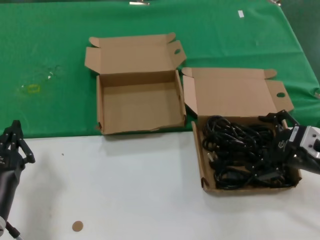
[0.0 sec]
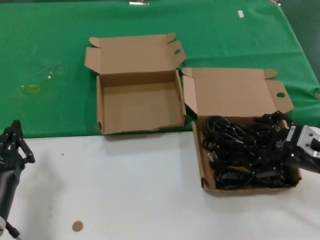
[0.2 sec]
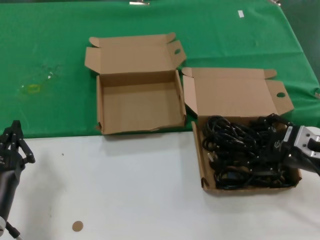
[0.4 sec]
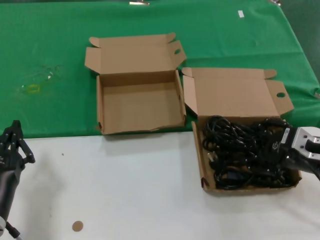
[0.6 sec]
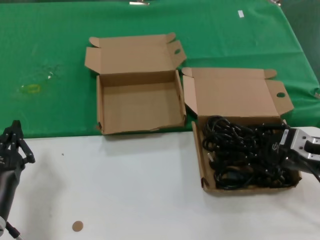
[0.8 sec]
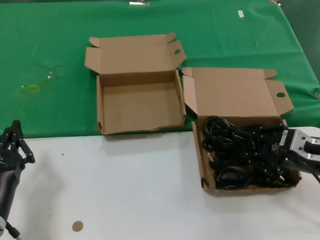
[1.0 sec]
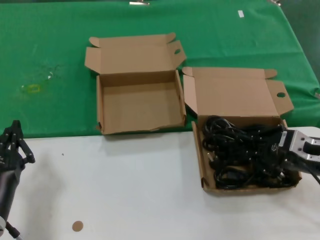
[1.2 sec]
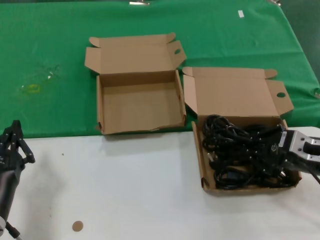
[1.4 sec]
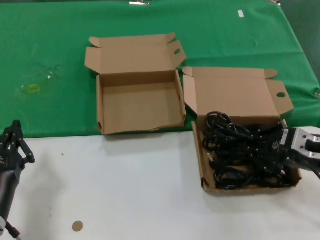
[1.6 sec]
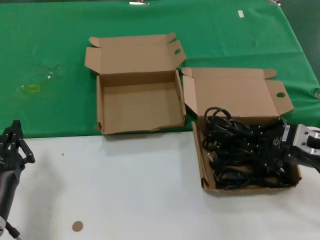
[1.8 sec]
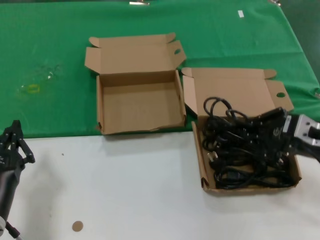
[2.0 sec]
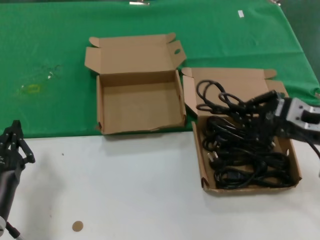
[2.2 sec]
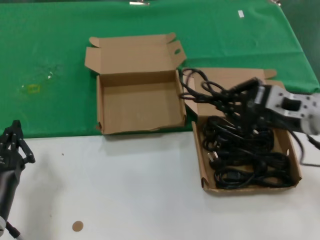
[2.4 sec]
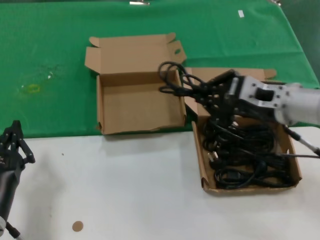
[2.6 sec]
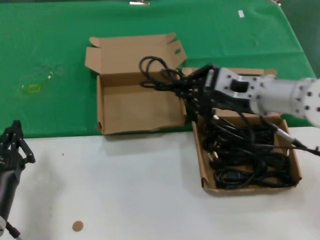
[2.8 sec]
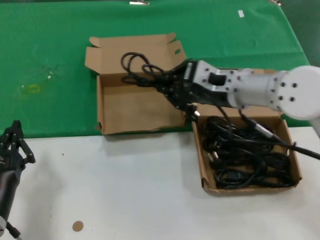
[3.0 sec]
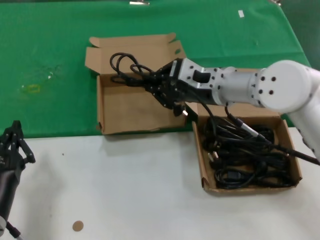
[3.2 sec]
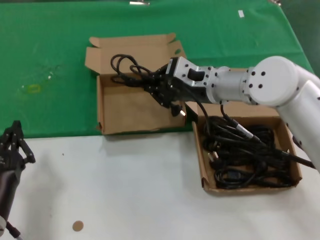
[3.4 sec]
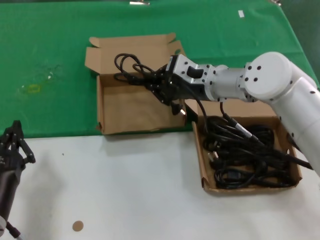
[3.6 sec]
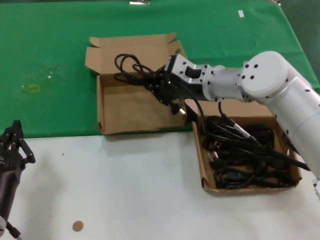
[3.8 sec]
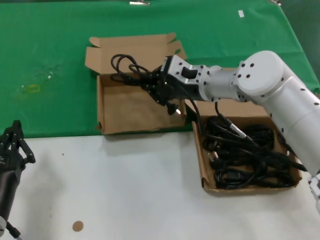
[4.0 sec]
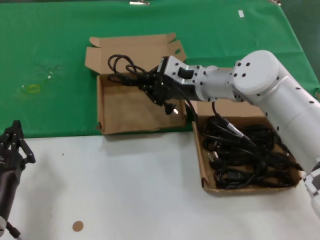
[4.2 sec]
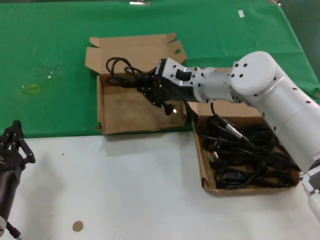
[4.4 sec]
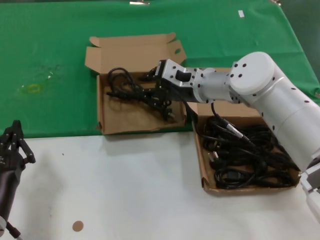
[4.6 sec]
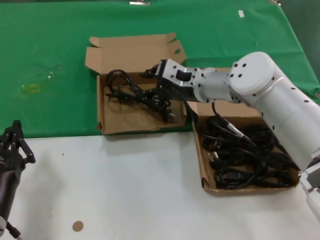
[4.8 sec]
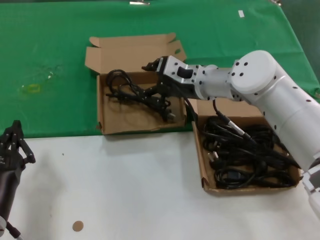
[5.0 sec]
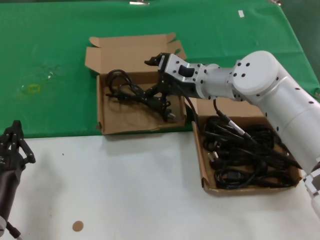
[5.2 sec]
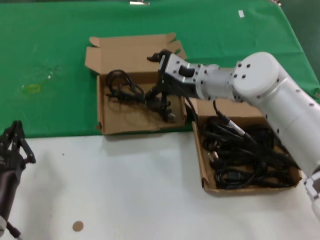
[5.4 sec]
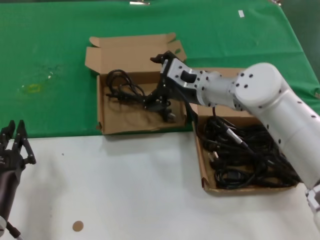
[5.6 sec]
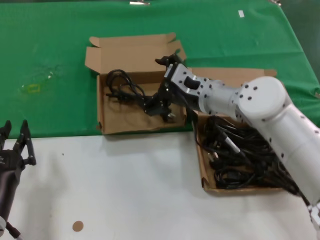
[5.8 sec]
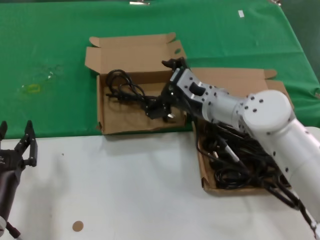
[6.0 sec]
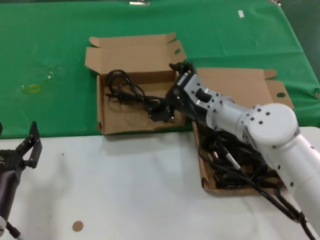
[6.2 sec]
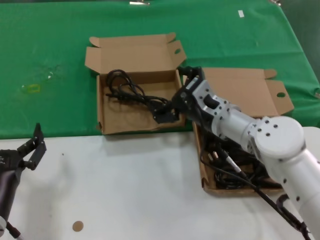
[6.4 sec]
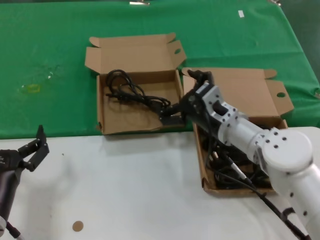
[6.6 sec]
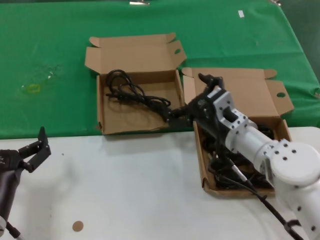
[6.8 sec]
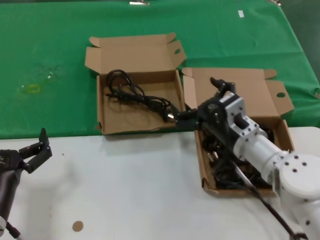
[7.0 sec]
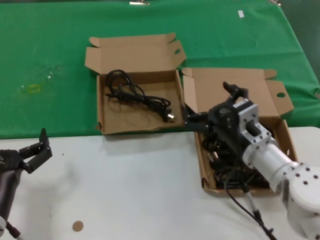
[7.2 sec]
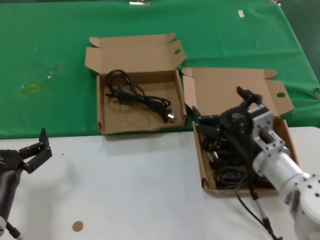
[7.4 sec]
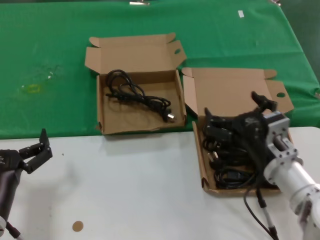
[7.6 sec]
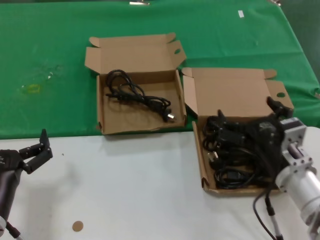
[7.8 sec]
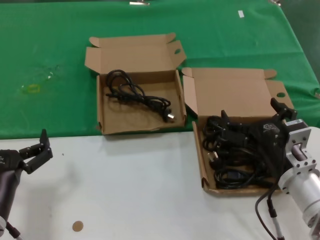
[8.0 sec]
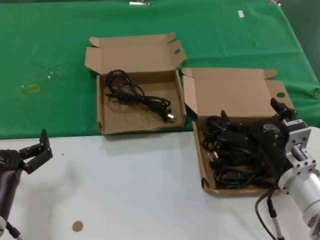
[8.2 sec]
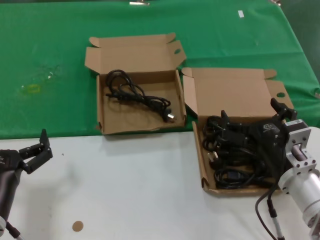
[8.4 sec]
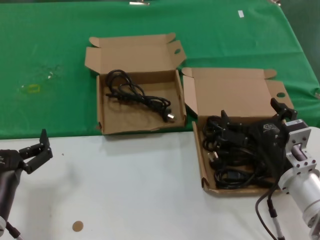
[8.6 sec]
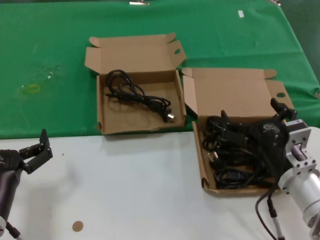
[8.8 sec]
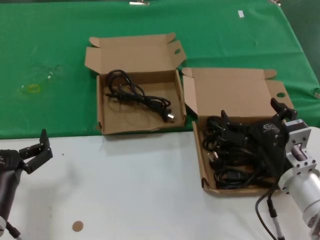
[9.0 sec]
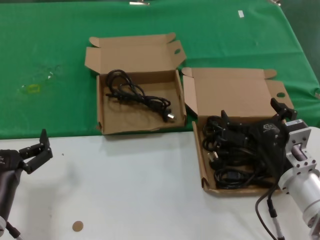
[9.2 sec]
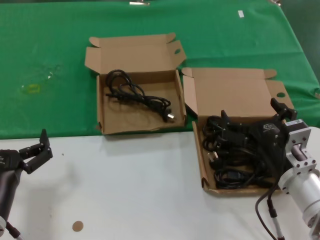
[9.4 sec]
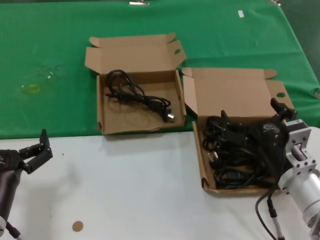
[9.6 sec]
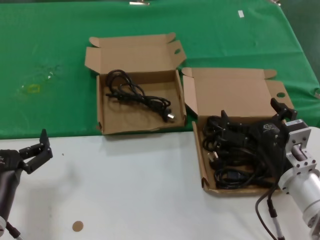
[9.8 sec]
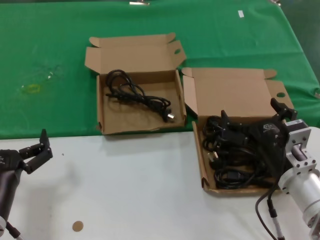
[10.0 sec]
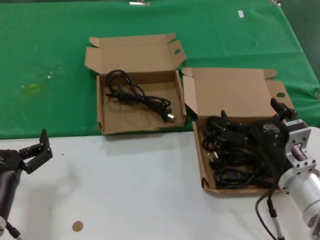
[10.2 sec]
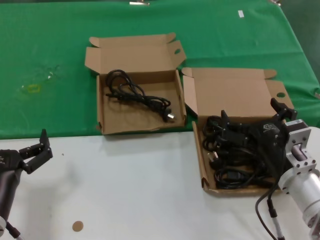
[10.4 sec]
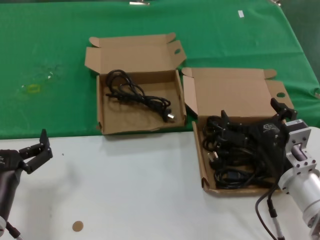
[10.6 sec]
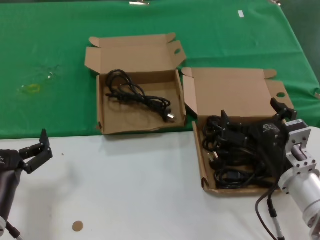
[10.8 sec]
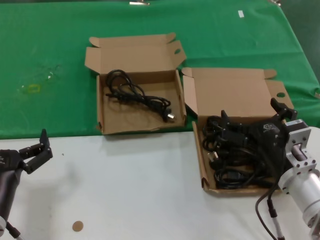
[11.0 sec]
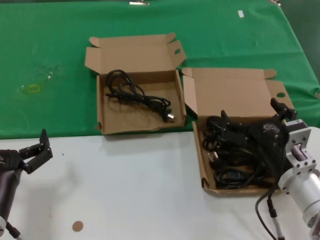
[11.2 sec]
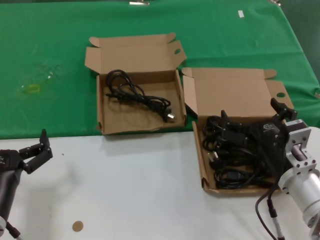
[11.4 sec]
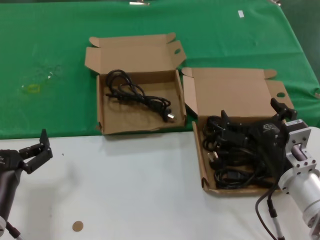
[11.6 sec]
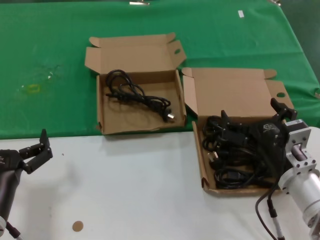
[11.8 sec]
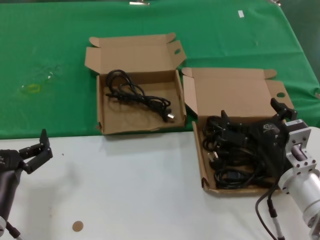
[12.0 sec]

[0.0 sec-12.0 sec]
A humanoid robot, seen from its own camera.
Task of the whole recording: take the parts from the box containing them and put them into an empty box.
Step, 1.4 sec to 4.6 sec: Place the data cable in the another box.
0.0 sec to 1.6 sec: There are only small adjustments of the hands.
1.6 sec to 3.0 sec: The right hand shifts roughly 20 cm to the left, forward and upward.
3.0 sec to 4.4 sec: The right hand is displaced forward and to the left by approximately 10 cm.
4.4 sec to 6.0 sec: The right hand moves approximately 5 cm.
6.0 sec to 7.6 sec: The right hand travels backward, downward and to the right by about 20 cm.
7.6 sec to 9.0 sec: The hands make only small movements.
9.0 sec to 12.0 sec: Both hands stay about where they are.

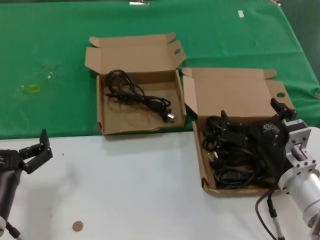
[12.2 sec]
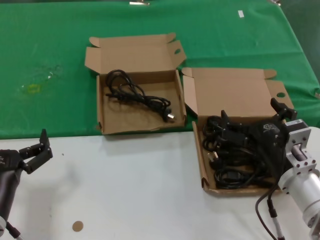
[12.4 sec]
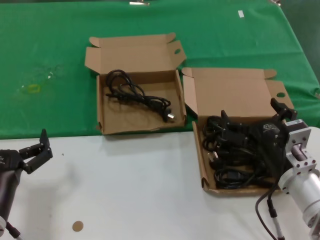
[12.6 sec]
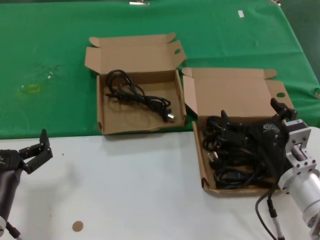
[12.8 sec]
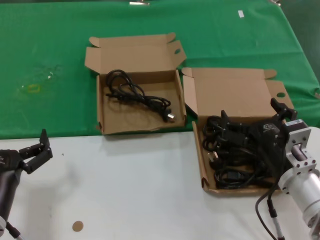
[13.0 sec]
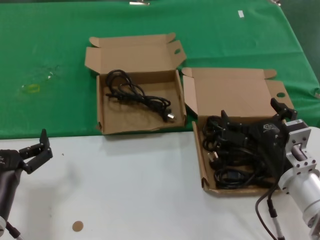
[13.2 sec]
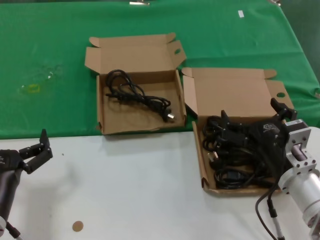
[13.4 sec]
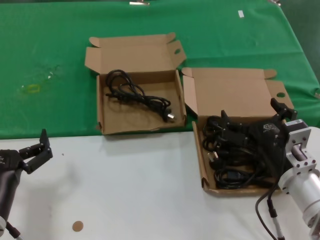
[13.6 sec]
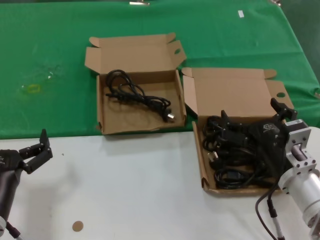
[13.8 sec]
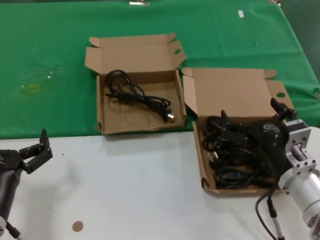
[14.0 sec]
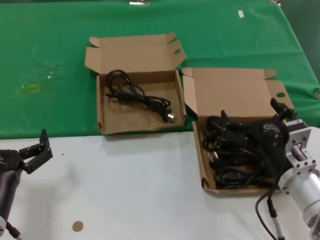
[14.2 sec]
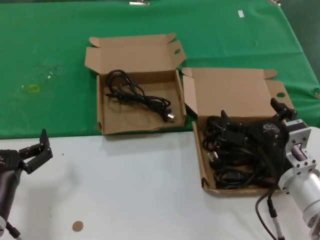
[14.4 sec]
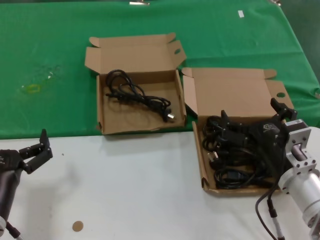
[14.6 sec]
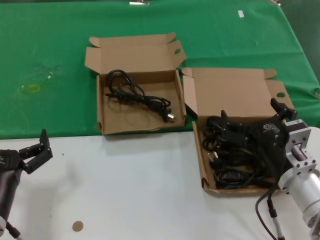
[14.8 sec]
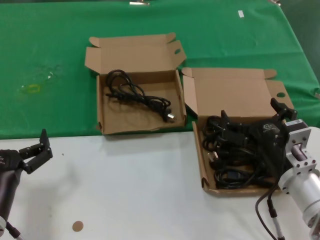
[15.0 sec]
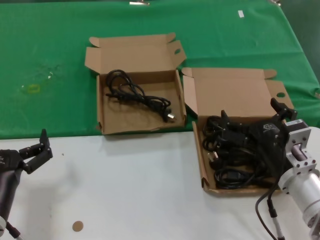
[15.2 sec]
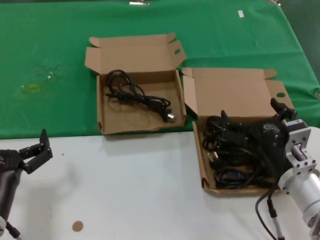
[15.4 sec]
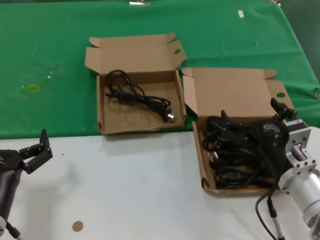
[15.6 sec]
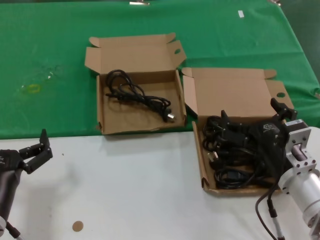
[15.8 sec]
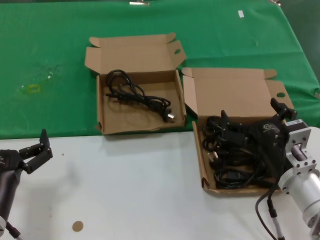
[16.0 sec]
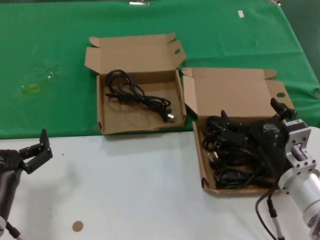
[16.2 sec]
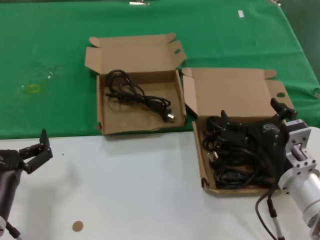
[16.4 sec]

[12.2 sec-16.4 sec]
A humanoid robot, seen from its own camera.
Task of the whole recording: take the parts from the box containing them and put them into an empty box.
12.2 sec to 16.4 sec: Neither hand changes place.
